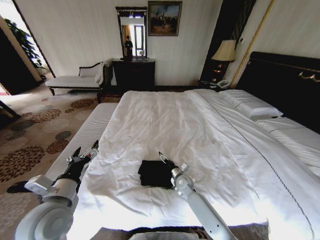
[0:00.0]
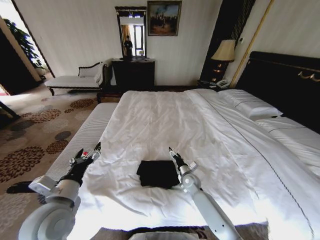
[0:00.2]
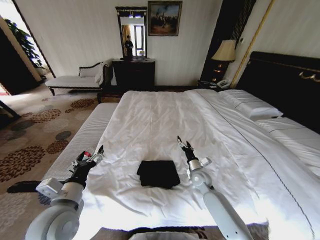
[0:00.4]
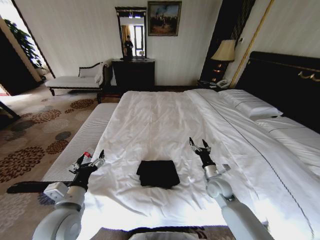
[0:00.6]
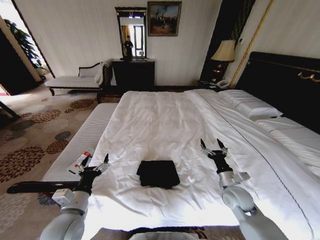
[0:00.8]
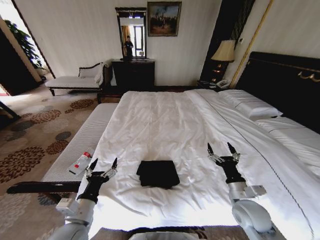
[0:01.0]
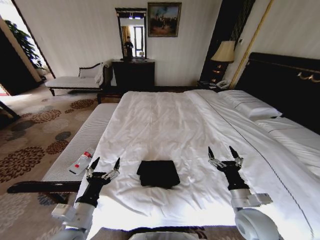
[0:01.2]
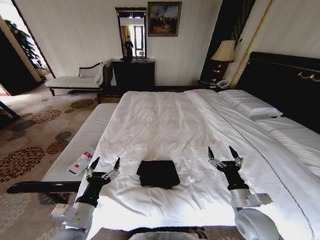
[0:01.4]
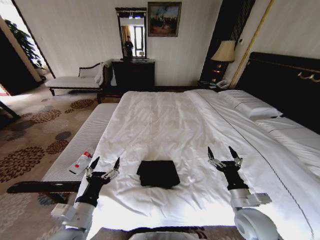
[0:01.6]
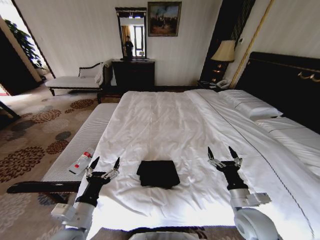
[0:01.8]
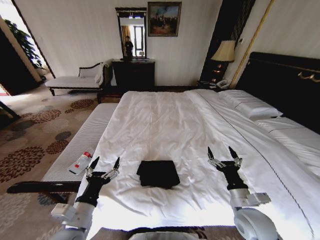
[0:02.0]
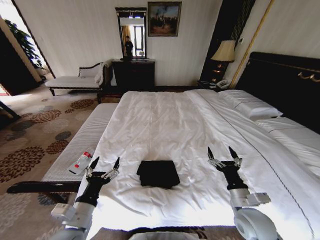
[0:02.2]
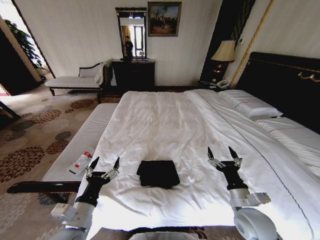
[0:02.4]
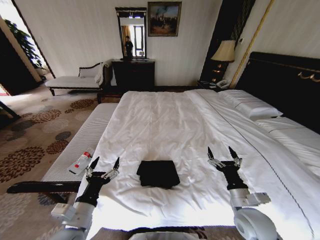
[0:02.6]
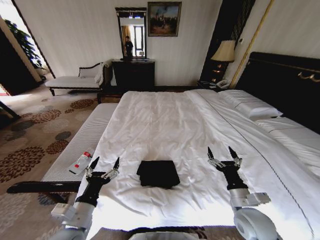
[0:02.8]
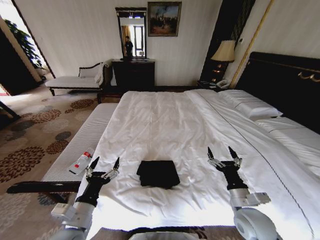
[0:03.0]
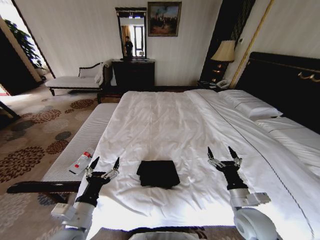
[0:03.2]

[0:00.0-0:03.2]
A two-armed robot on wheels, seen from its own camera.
Task of the whole recording: Fold the clothes on the bed.
0:00.0 to 0:01.6: The left gripper goes some 10 cm downward and backward. Meanwhile the right gripper moves backward, to the right and upward, about 30 cm.
0:01.6 to 0:03.2: Both grippers stay put.

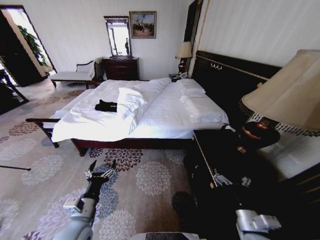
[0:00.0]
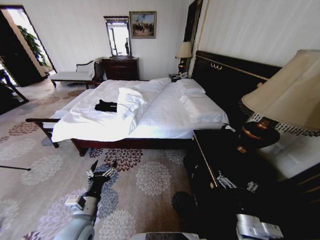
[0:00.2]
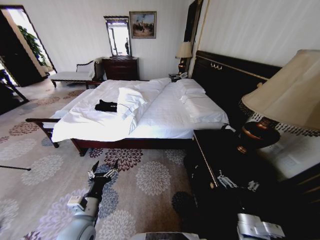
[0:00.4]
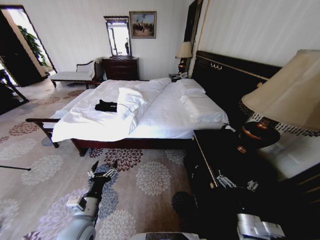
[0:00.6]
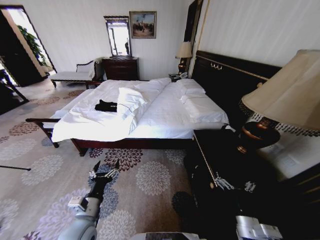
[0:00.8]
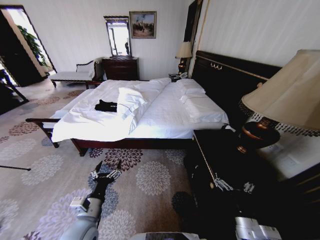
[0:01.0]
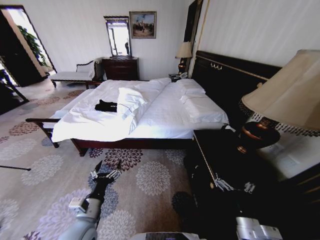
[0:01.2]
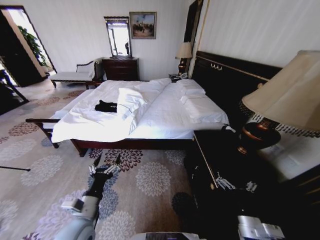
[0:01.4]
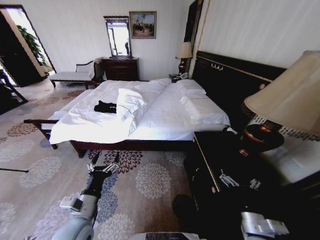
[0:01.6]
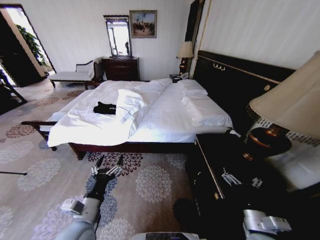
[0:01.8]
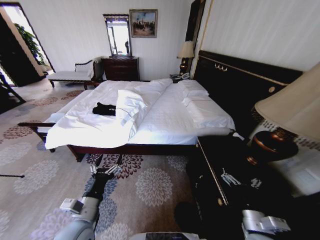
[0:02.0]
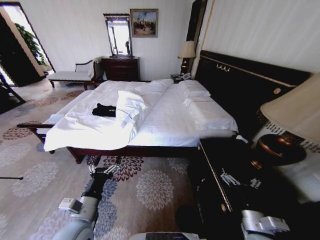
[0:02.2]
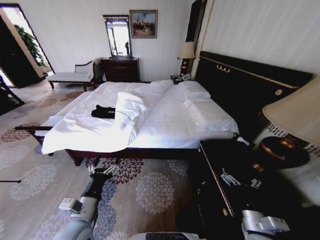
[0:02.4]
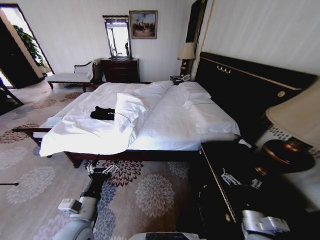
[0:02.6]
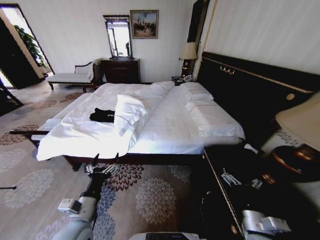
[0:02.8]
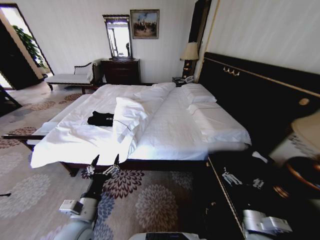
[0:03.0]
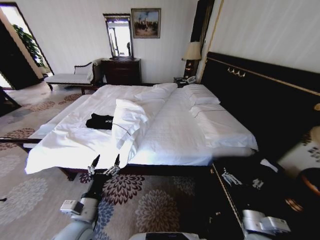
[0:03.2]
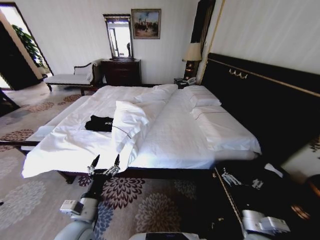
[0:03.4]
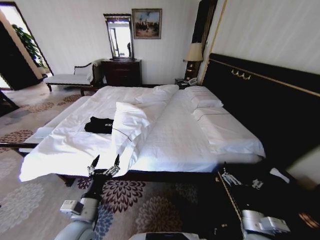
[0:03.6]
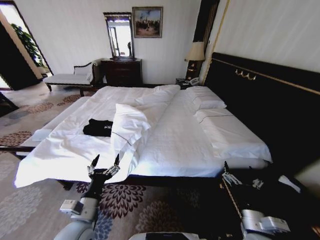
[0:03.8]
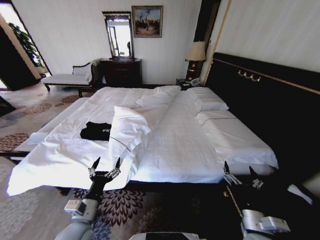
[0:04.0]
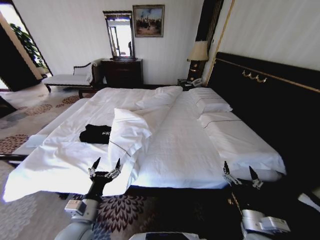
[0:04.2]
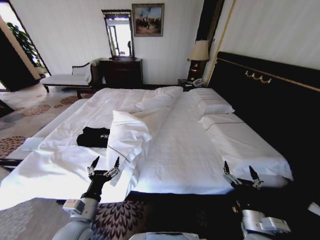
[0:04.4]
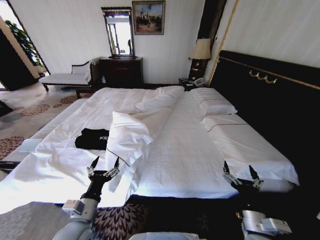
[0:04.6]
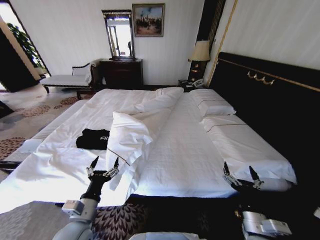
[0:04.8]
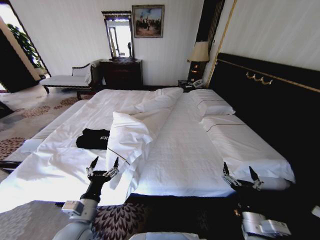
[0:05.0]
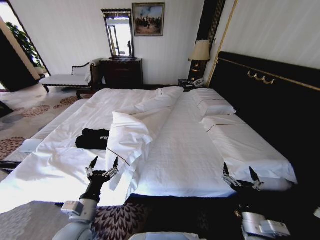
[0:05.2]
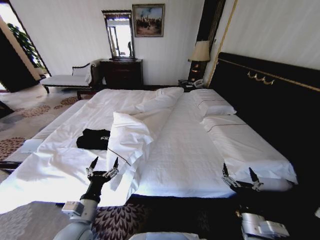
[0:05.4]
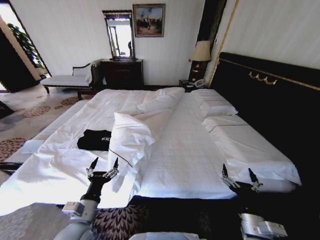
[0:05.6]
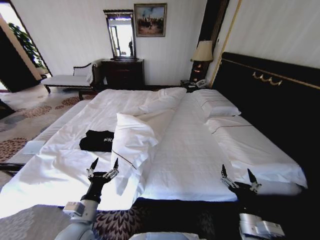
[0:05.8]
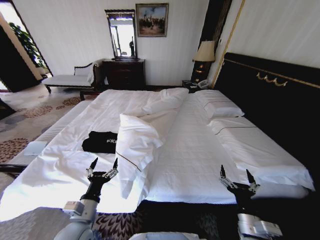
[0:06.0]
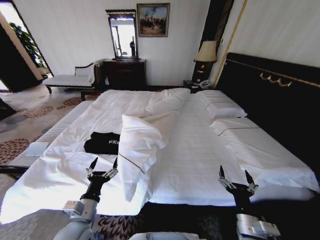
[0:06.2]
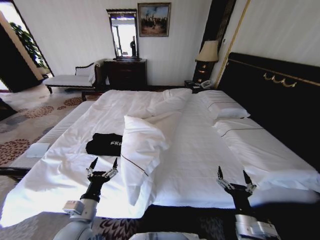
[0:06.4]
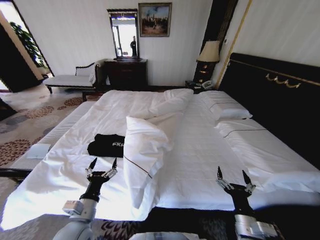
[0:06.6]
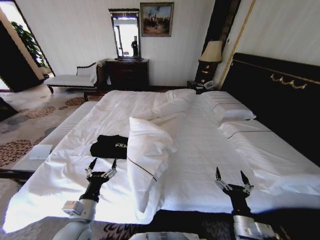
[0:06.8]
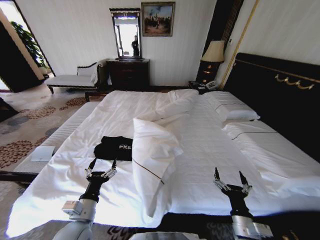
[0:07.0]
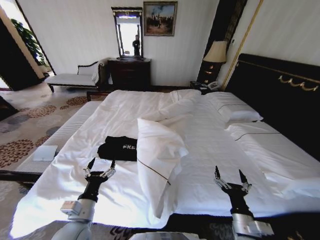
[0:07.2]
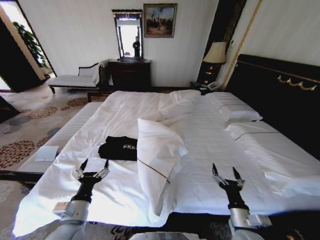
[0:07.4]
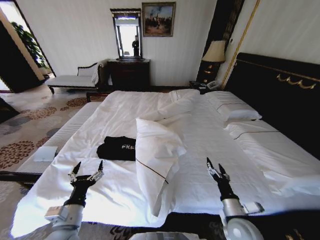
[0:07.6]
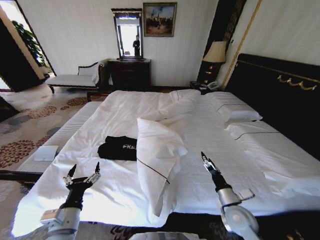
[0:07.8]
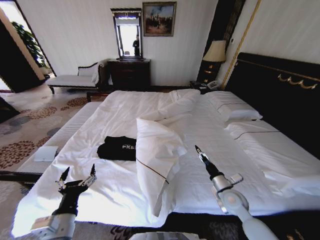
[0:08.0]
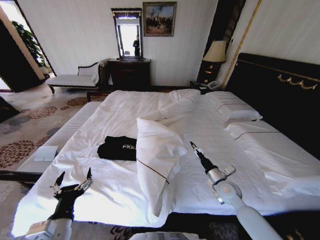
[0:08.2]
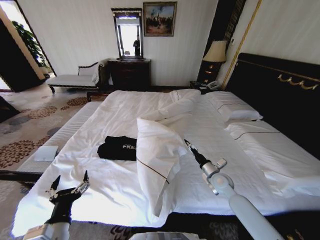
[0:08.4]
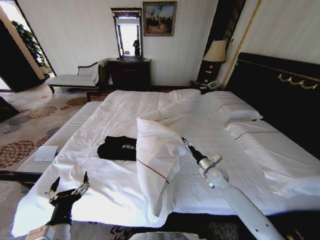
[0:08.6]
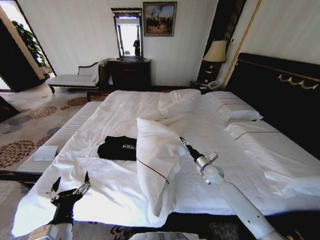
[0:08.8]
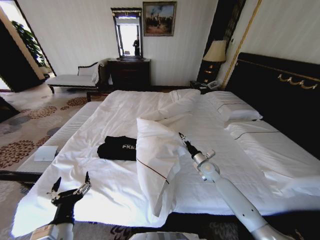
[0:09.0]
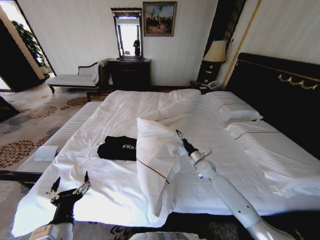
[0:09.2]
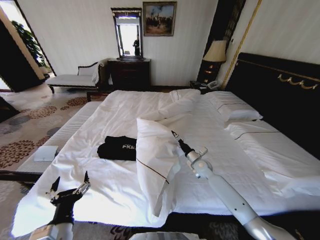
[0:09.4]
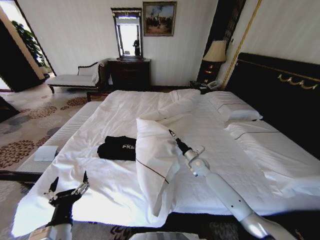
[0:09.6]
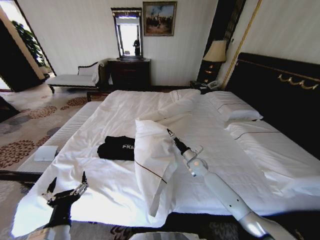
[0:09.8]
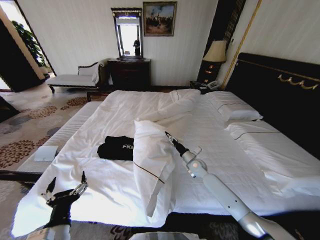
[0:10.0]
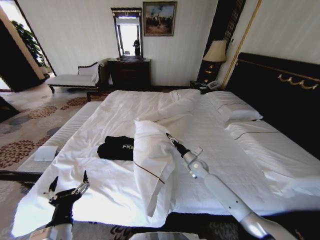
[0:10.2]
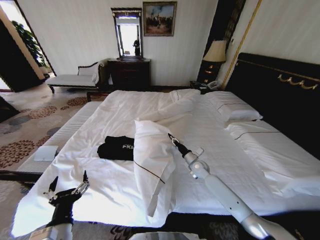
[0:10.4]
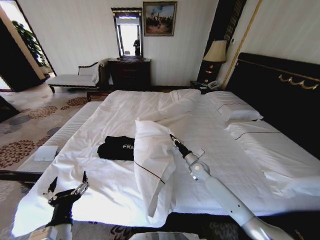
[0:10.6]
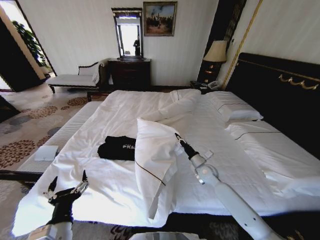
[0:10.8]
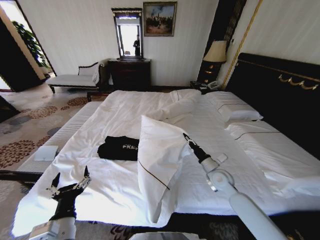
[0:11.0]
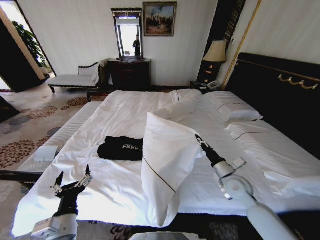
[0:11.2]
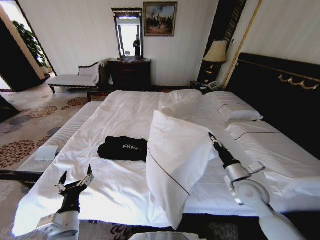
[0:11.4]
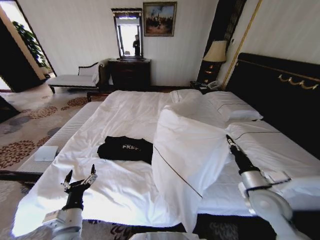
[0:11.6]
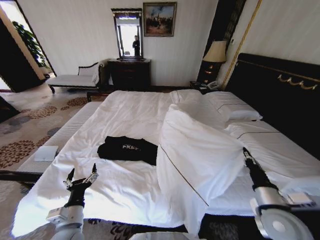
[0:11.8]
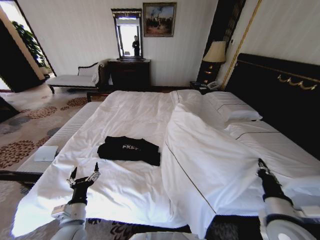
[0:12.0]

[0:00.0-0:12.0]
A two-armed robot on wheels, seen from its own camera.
Task of the whole recording: Fold the clothes on the bed.
0:06.0 to 0:07.6: The right gripper is displaced forward by approximately 5 cm.
0:07.6 to 0:09.0: The right gripper travels forward by about 25 cm. The left gripper goes about 5 cm backward.
0:09.0 to 0:10.4: The right gripper closes up.
0:10.4 to 0:12.0: The right gripper goes roughly 35 cm backward and upward. The left gripper heads forward and downward, covering roughly 10 cm.

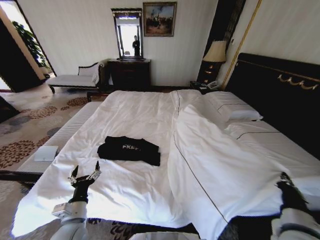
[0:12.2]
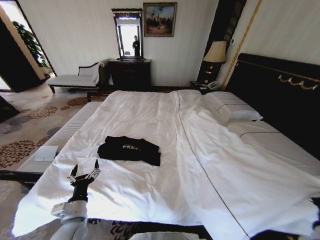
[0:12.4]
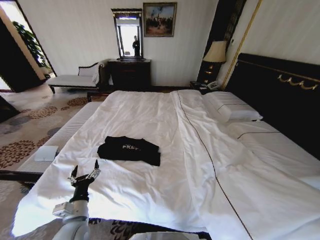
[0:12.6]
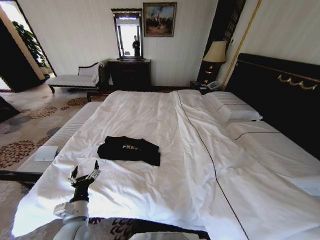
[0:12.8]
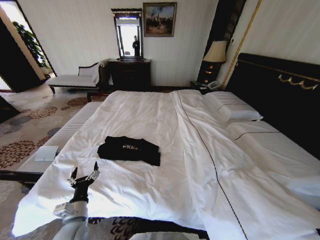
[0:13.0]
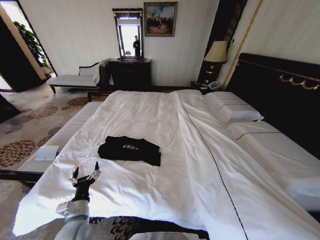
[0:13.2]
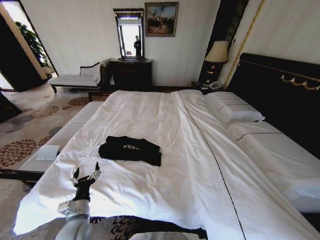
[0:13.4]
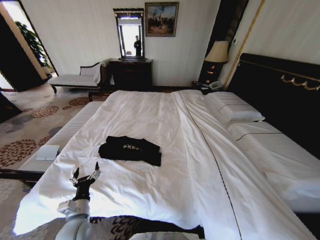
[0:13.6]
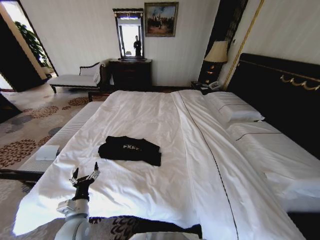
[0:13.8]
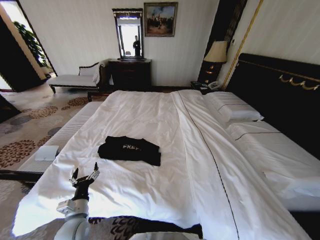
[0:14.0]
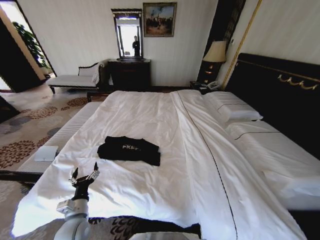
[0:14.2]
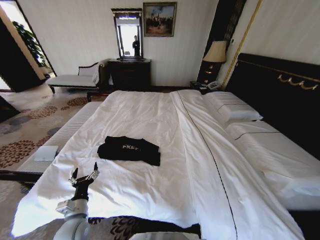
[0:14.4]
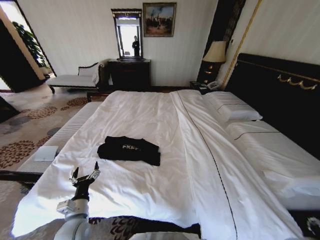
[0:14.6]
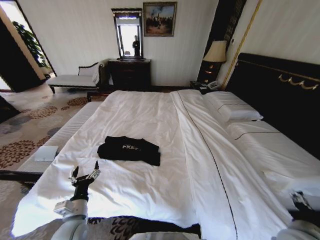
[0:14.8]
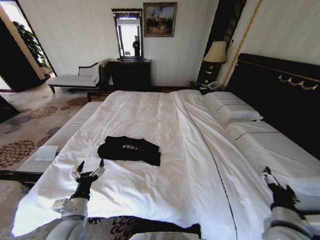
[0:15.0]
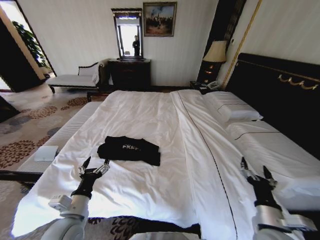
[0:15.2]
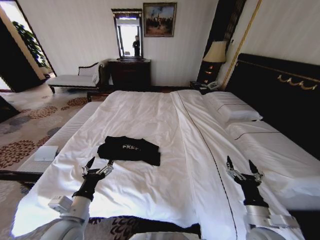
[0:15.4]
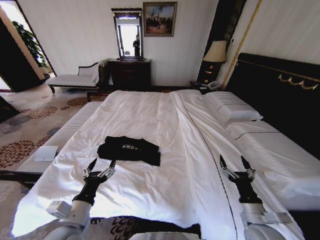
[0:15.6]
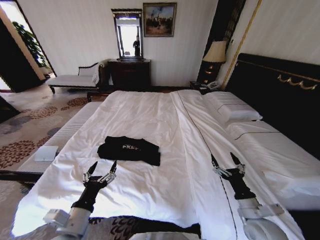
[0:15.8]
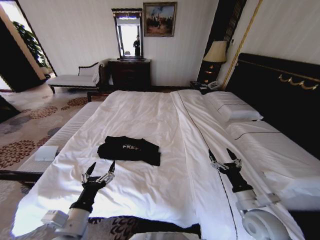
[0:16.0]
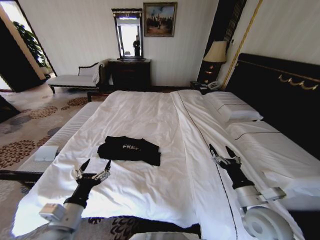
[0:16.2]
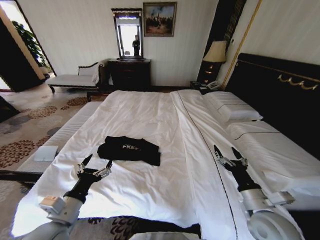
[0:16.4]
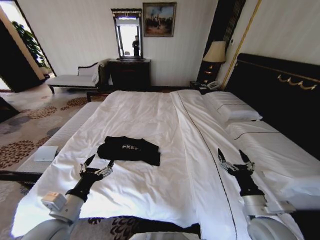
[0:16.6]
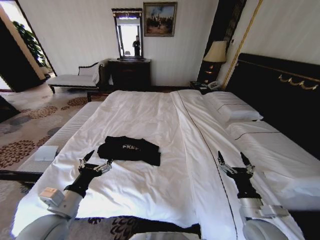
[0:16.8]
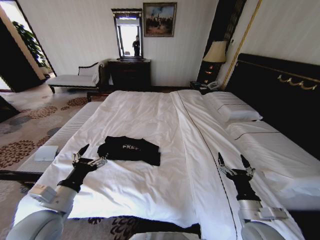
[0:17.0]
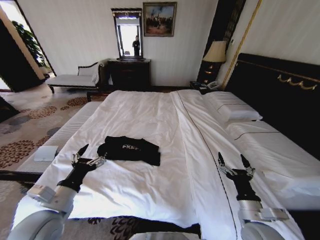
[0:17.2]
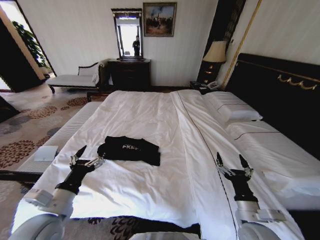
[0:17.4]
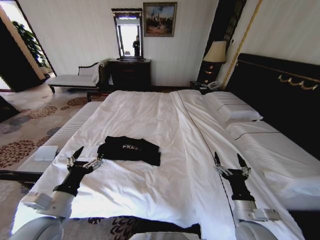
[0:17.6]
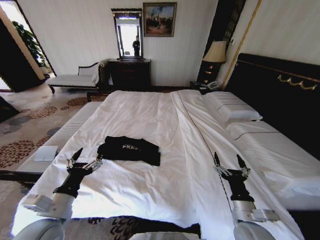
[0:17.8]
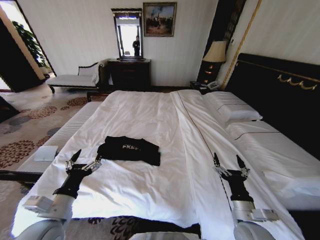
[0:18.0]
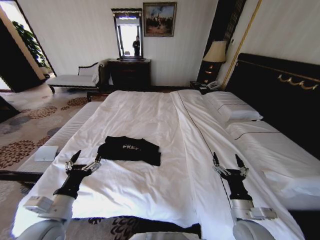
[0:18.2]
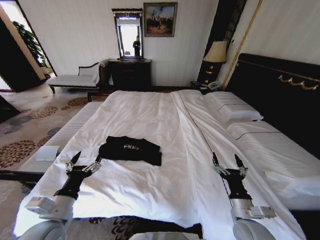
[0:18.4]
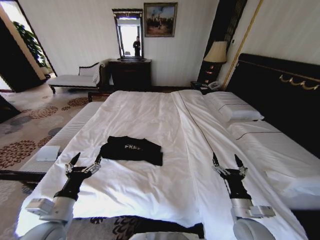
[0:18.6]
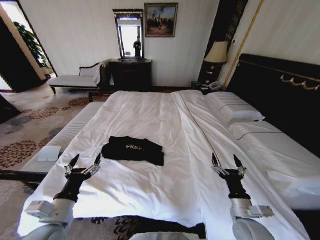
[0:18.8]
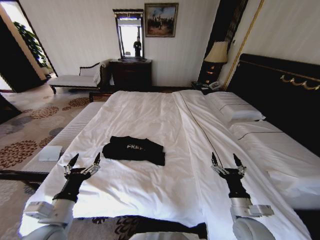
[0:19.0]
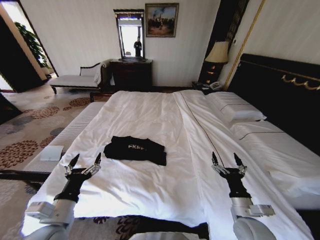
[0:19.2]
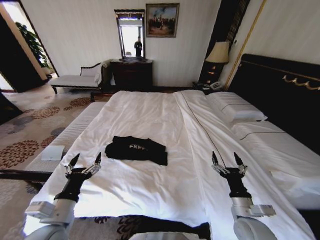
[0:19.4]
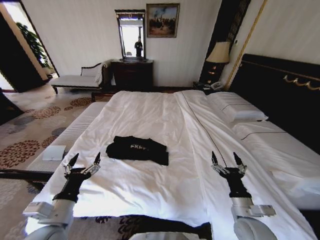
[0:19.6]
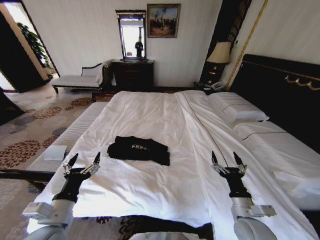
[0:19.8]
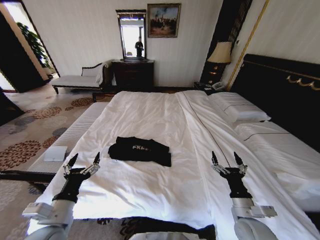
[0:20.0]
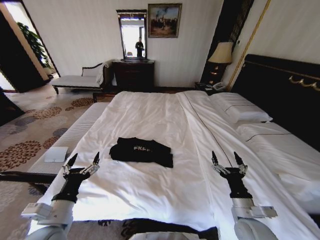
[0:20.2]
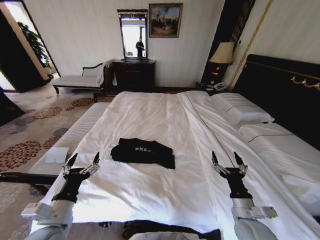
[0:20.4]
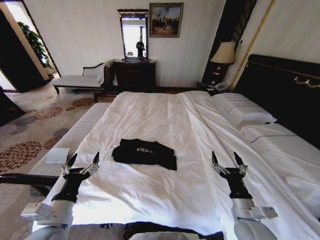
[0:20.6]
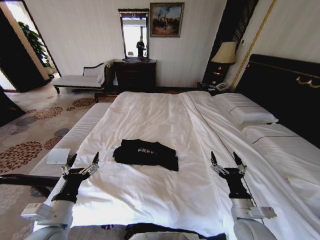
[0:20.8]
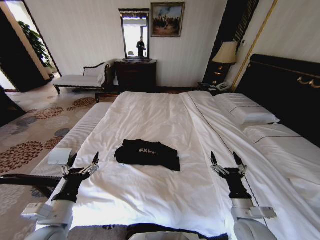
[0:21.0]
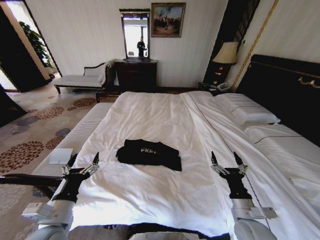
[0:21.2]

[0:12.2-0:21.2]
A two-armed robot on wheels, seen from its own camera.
Task of the whole recording: Fold the clothes on the bed.
0:12.2 to 0:13.8: The right gripper is displaced downward and to the right by roughly 20 cm.
0:13.8 to 0:15.2: The left gripper shifts approximately 10 cm upward. The right gripper shifts approximately 15 cm upward, forward and to the left, and opens up.
0:16.6 to 0:18.2: There are only small adjustments of the grippers.
